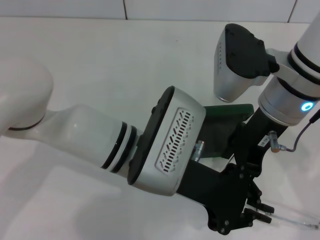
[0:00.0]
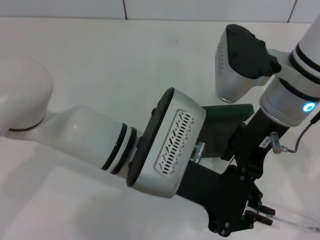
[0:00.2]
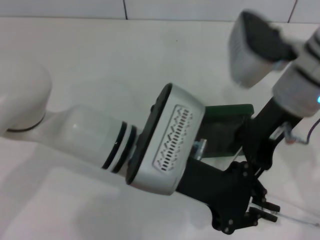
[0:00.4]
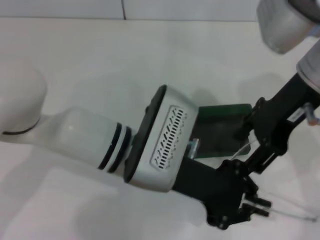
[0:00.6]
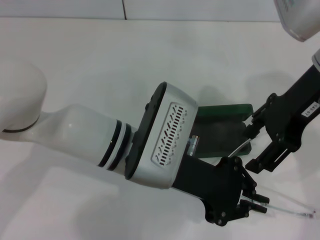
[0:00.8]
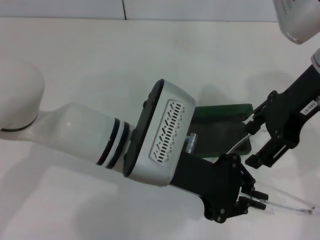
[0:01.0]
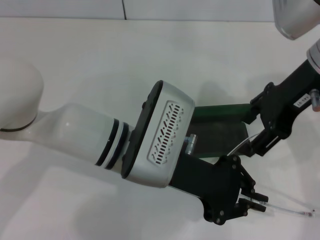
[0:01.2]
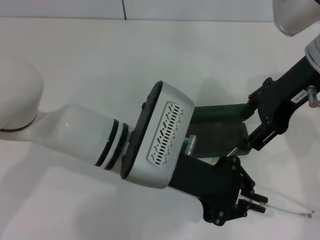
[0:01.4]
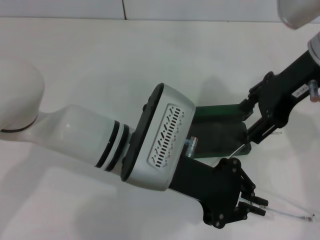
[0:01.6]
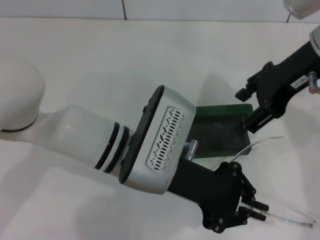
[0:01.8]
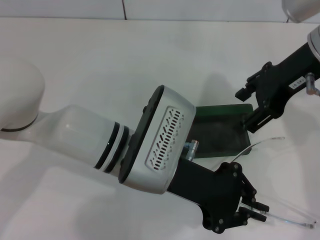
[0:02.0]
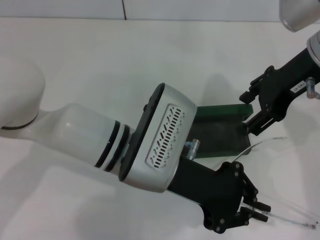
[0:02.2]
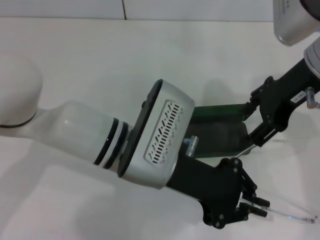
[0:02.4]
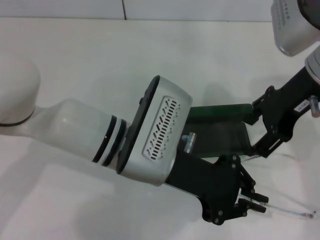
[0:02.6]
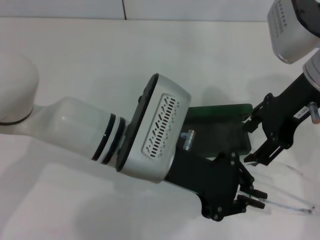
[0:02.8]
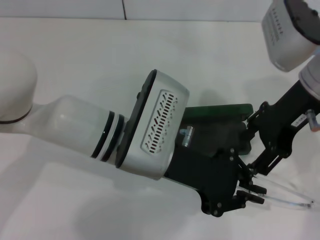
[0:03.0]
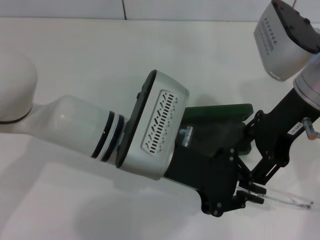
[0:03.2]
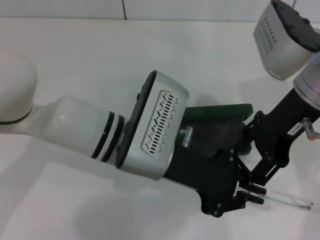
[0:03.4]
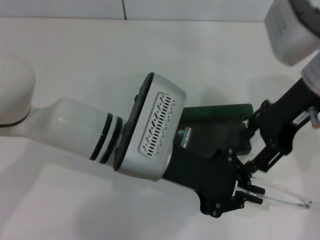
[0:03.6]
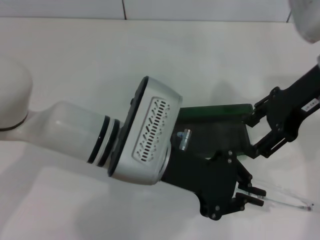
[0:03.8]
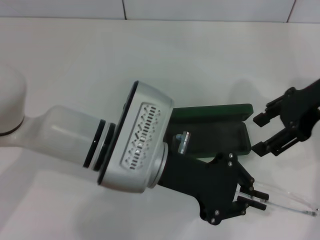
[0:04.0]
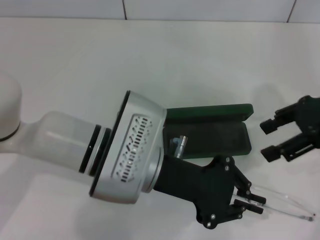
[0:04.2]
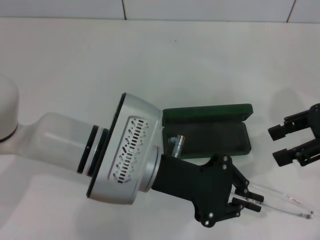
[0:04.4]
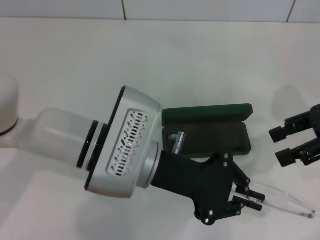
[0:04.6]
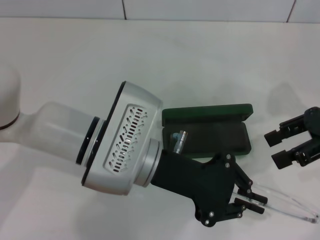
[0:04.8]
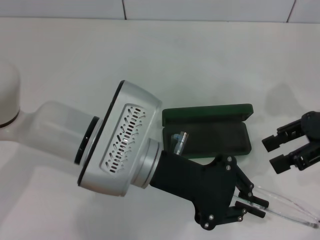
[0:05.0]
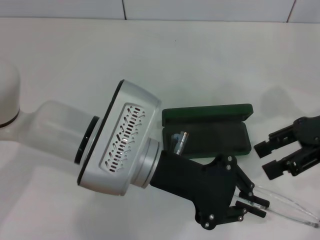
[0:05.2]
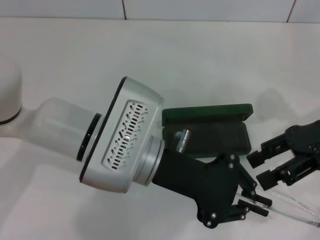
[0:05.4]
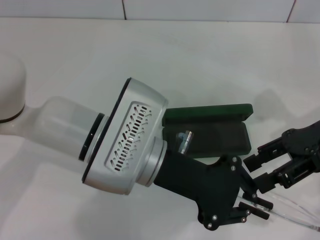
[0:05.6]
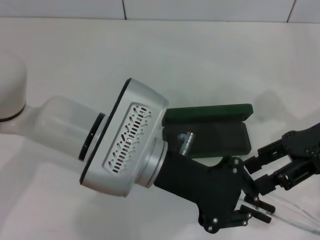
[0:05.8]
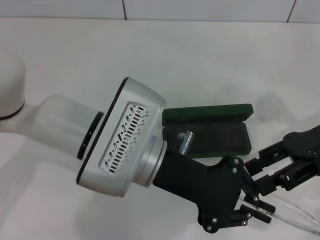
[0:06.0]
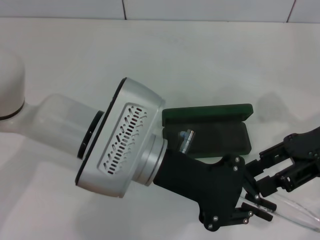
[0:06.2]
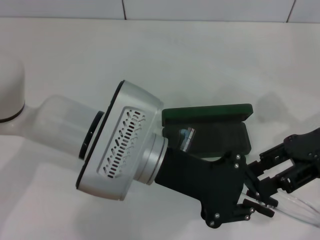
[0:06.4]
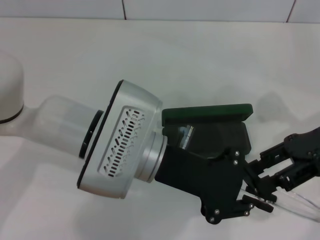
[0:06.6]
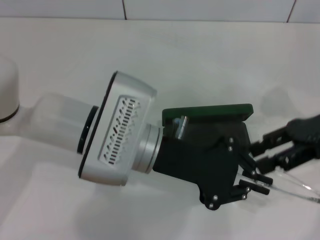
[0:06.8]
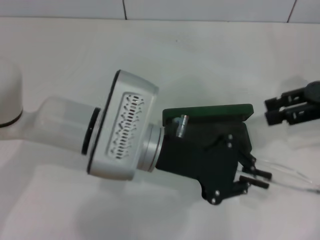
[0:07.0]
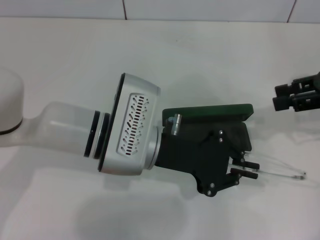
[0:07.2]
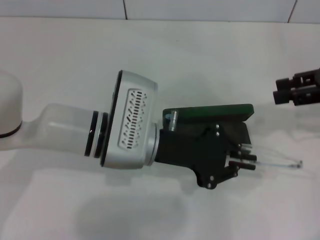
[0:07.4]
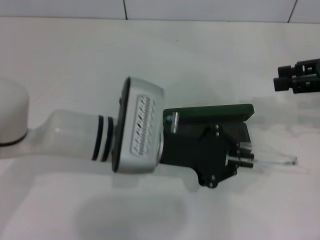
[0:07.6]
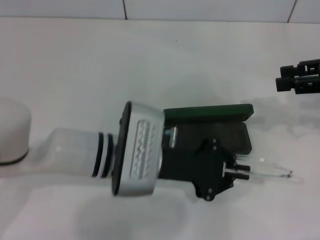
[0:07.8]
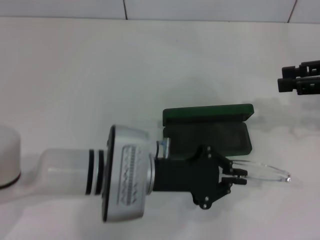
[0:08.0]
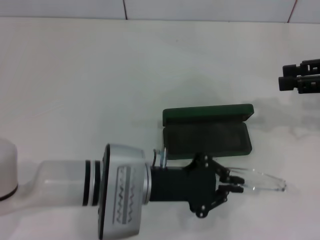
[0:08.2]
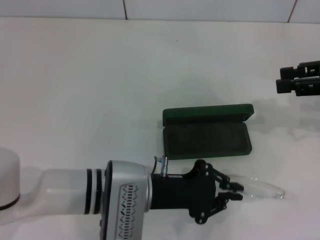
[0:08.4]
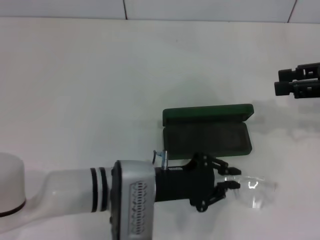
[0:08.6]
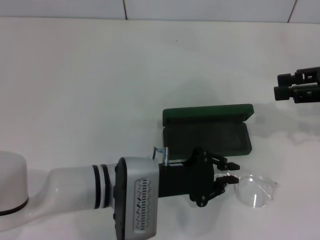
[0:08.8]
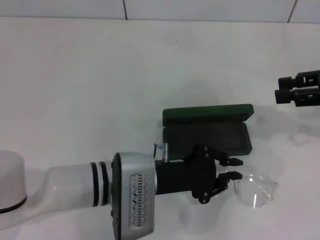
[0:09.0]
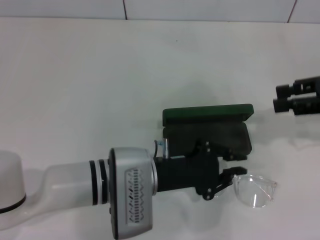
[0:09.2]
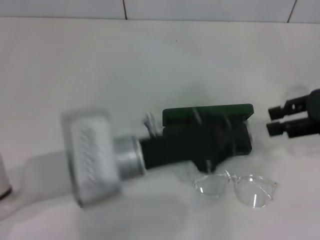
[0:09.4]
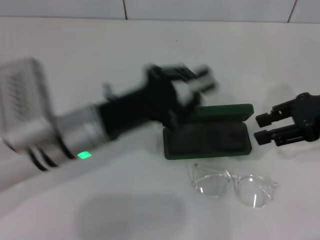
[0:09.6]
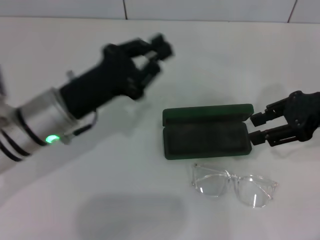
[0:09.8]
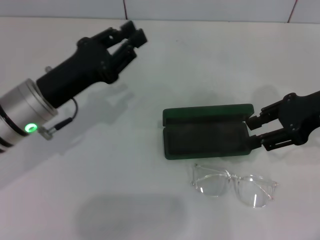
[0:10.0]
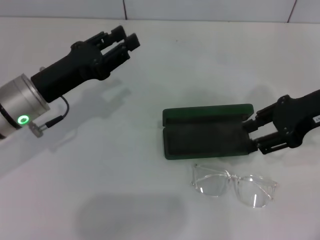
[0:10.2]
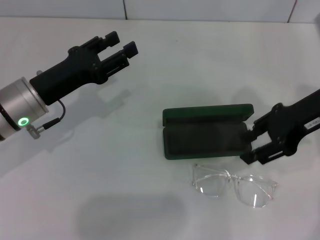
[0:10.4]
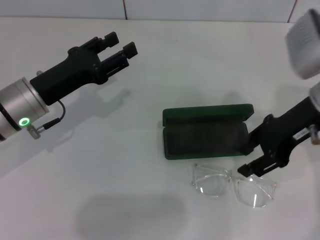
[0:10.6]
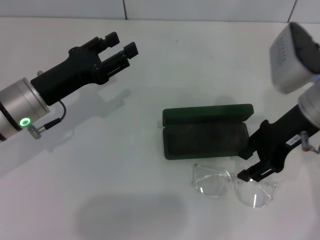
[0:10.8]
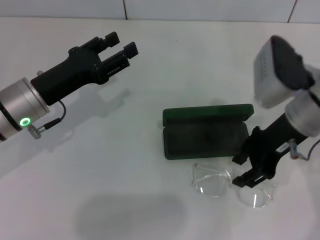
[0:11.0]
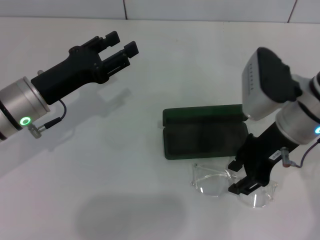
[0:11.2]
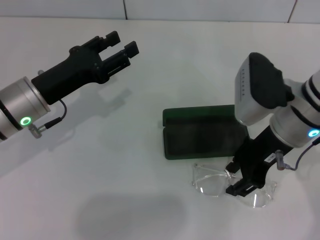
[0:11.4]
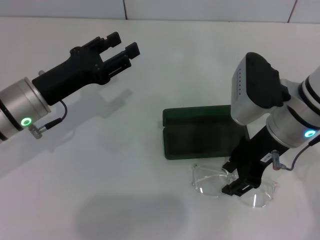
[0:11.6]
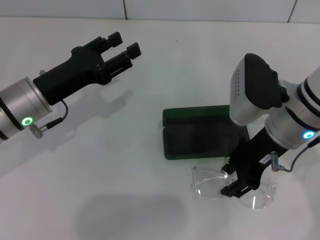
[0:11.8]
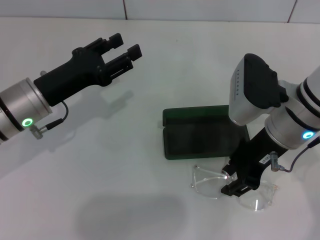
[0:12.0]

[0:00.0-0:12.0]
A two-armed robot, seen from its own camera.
Step, 0:00.0 to 0:03.4: Fold the frame with your right hand.
Step, 0:03.6 to 0:09.2: Place the glasses on the table with your left hand.
0:00.0 to 0:01.6: The right gripper moves to the right and upward, roughly 10 cm.
0:03.0 to 0:04.4: The right gripper travels to the right by some 10 cm.
0:04.4 to 0:06.0: There are only small adjustments of the grippers.
0:06.0 to 0:07.6: The right gripper shifts some 5 cm to the right; the left gripper moves approximately 5 cm.
0:07.6 to 0:09.0: The left gripper shifts by about 5 cm.
0:09.0 to 0:10.4: The right gripper is displaced to the left by some 10 cm. The left gripper travels to the left and forward by roughly 15 cm.
0:10.4 to 0:12.0: The right gripper travels to the left by roughly 10 cm.

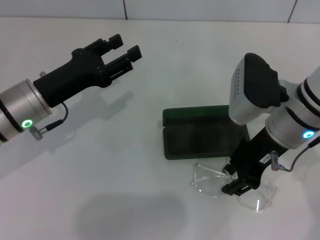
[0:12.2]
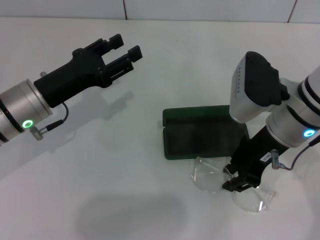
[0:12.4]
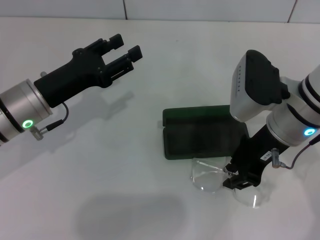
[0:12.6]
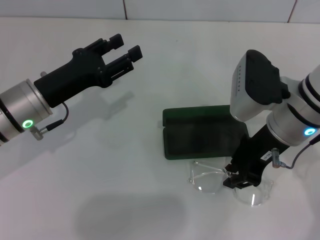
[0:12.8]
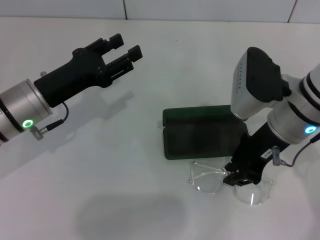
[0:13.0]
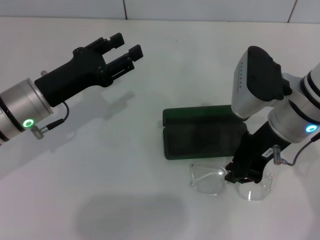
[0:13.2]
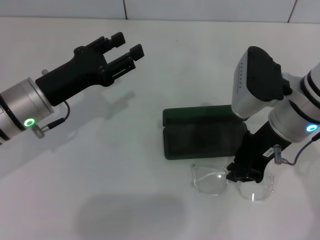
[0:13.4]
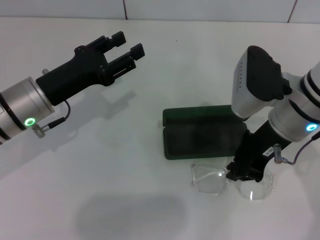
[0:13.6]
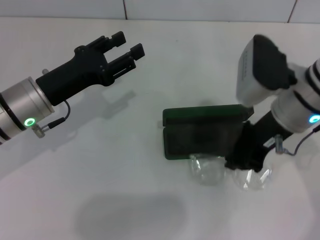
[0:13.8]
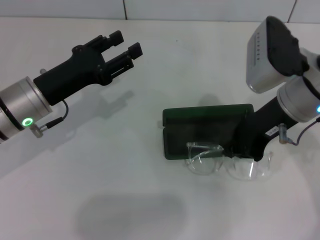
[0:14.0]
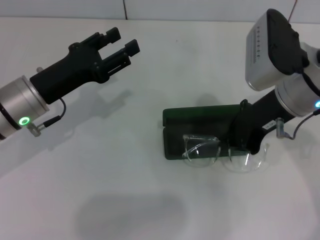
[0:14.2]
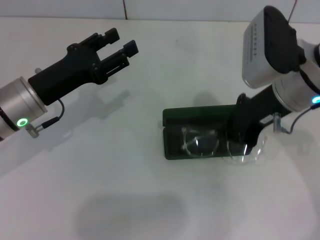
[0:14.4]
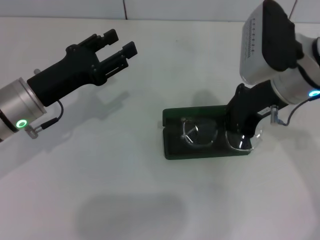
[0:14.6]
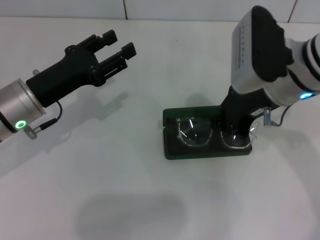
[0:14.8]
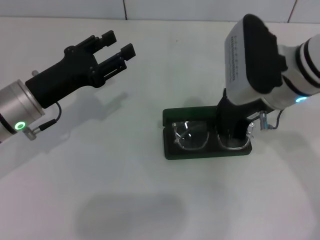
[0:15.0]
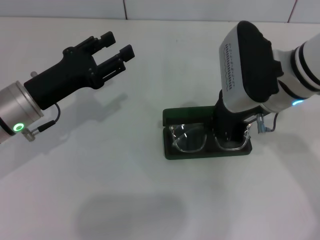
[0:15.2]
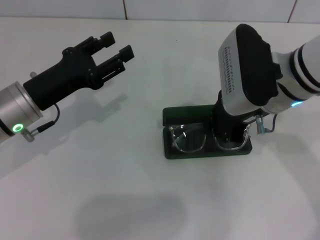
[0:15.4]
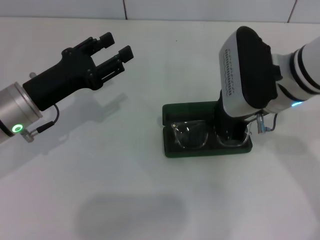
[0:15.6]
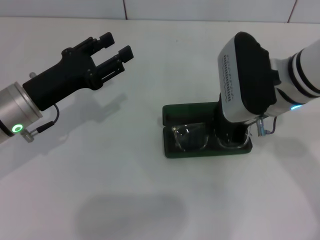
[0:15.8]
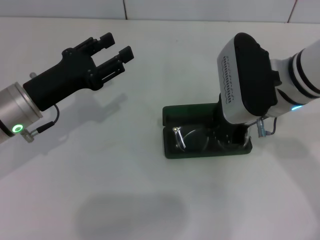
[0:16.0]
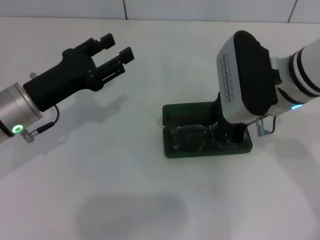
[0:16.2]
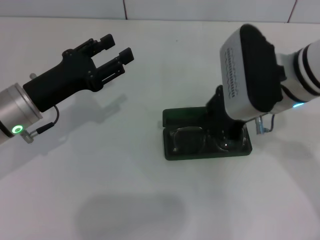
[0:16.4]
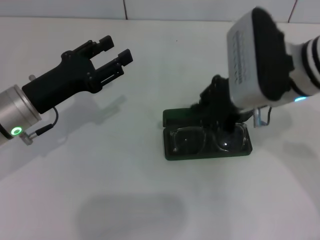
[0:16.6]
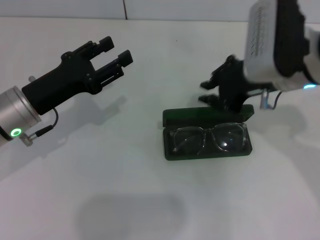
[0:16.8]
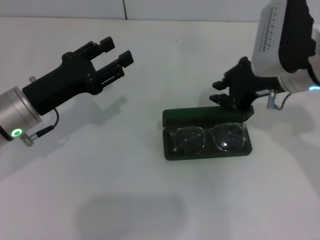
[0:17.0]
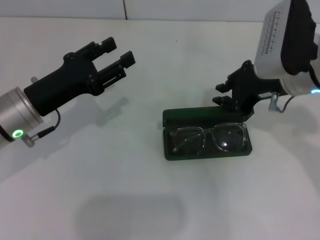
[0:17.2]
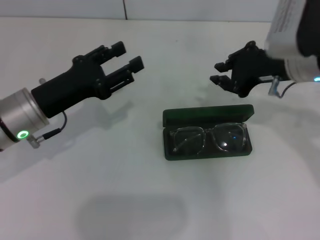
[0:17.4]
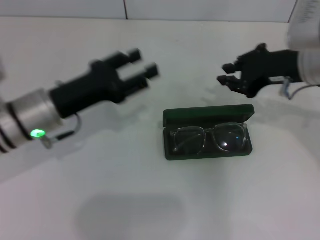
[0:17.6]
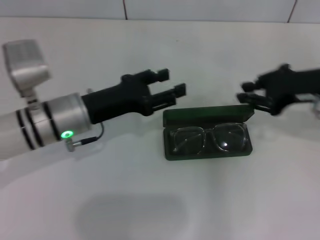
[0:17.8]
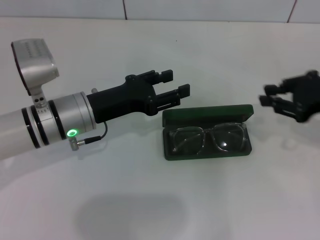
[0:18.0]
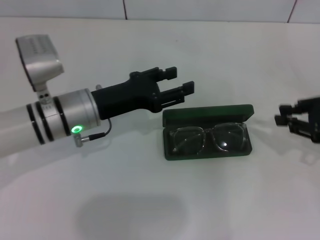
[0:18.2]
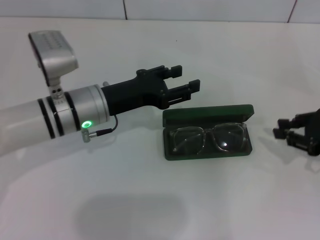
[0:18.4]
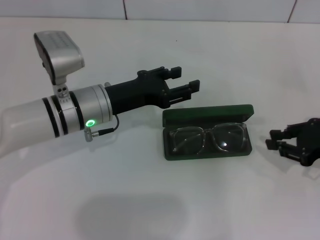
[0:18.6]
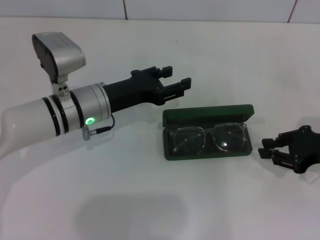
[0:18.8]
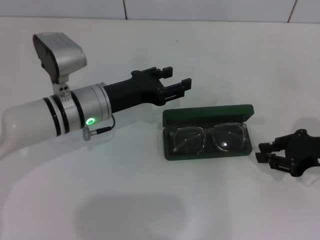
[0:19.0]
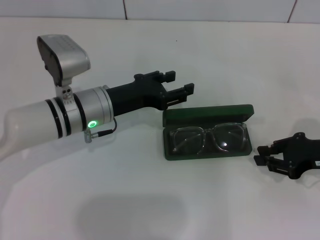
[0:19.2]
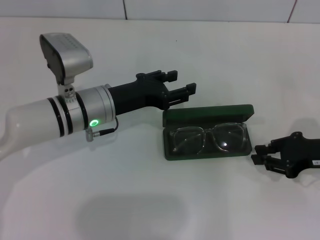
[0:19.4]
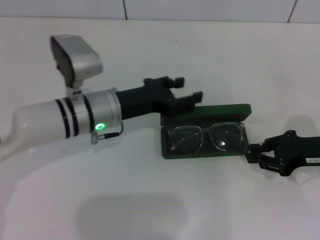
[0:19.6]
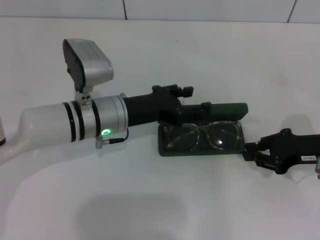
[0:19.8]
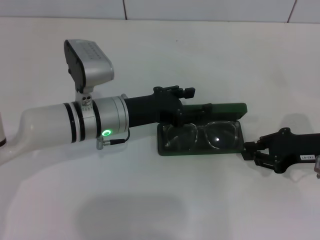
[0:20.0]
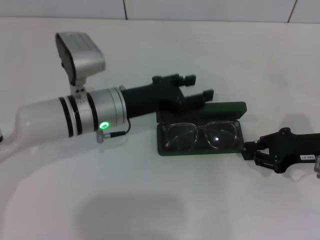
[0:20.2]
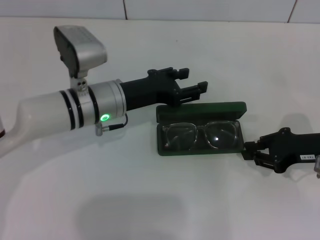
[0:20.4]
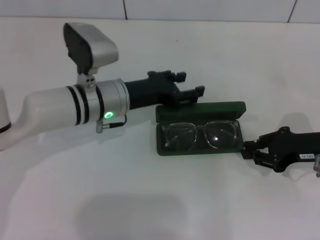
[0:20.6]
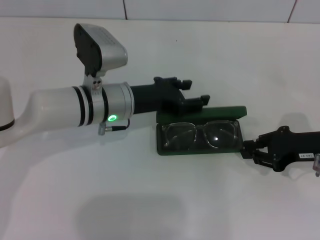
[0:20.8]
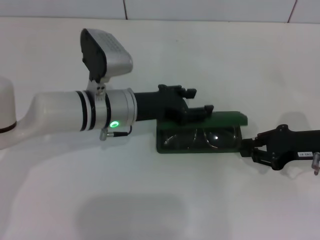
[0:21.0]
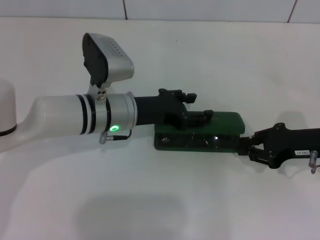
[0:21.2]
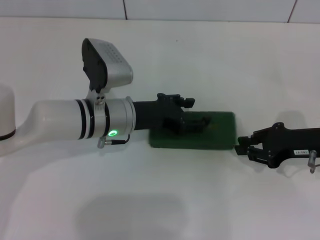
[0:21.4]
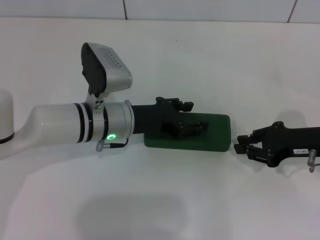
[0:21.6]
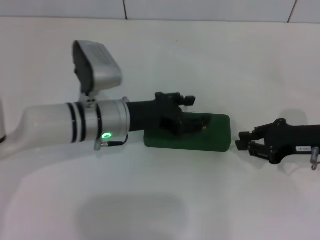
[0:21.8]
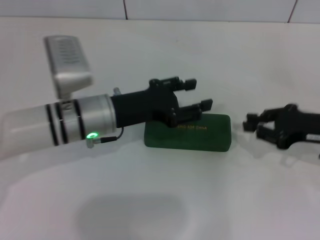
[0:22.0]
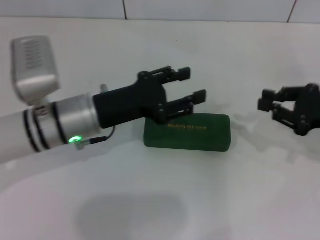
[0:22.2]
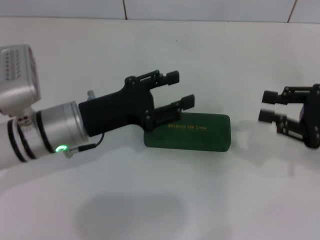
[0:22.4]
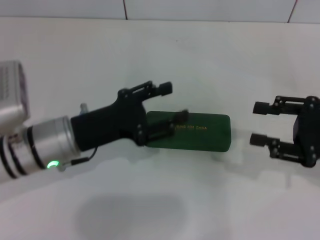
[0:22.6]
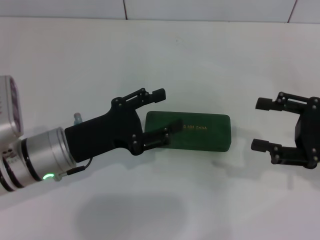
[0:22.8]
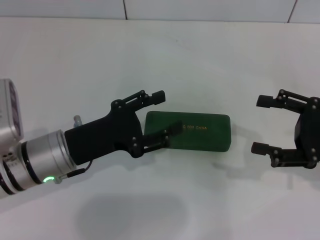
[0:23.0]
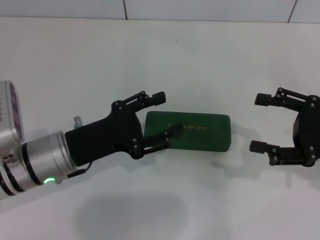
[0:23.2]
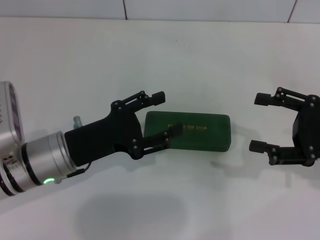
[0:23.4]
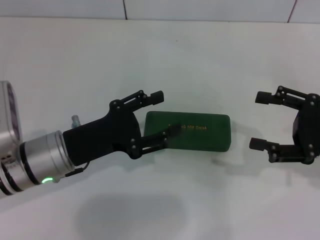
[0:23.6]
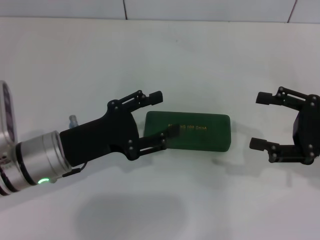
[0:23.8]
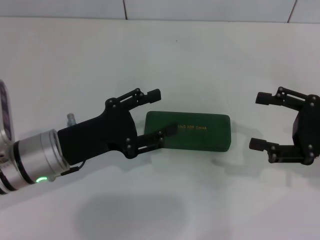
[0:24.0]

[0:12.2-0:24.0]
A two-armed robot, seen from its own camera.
Step, 0:12.8 to 0:16.2: Put the glasses into the case with your right hand.
Step, 0:16.4 to 0:21.2: Close the glasses case with your left hand.
0:12.2 to 0:13.6: The right gripper closes.
0:15.2 to 0:16.6: The grippers move only a little.
0:16.6 to 0:18.2: The left gripper moves to the right, some 5 cm. Meanwhile the right gripper goes approximately 20 cm to the right.
0:18.2 to 0:19.6: The right gripper shifts approximately 5 cm downward.
0:19.6 to 0:21.0: There are only small adjustments of the grippers.
0:21.0 to 0:22.6: The right gripper shifts by about 5 cm, while the left gripper shifts about 10 cm backward and to the left.
0:22.6 to 0:24.0: The right gripper opens up.
